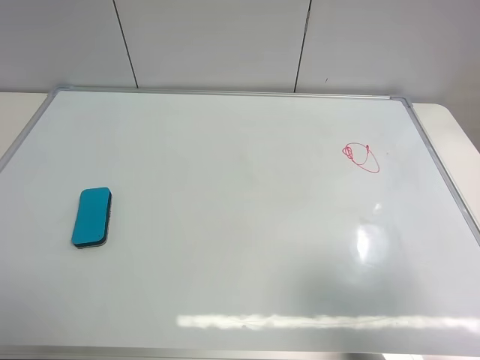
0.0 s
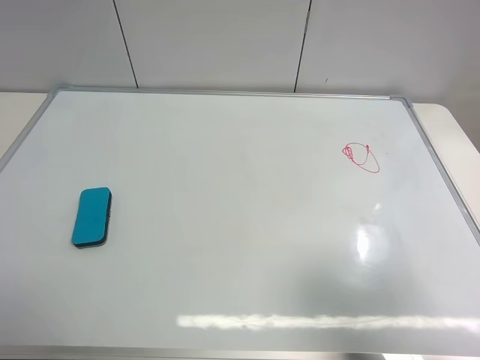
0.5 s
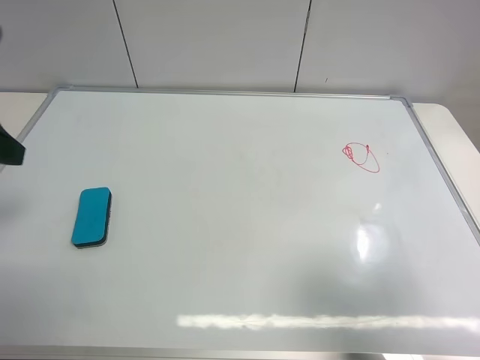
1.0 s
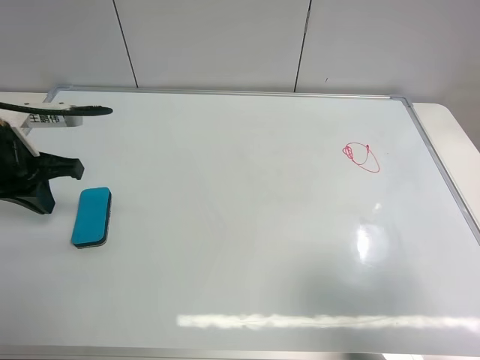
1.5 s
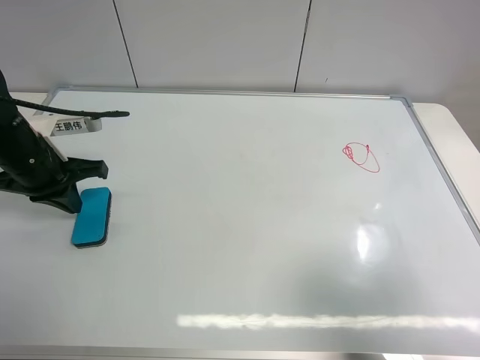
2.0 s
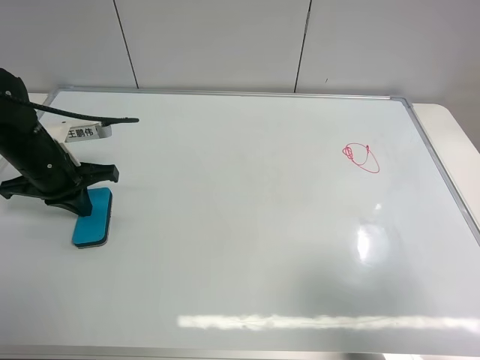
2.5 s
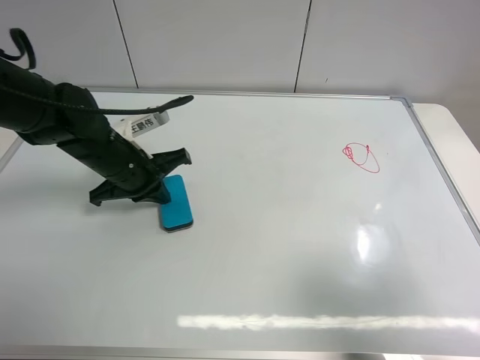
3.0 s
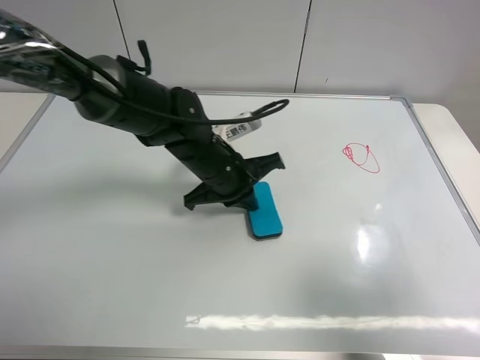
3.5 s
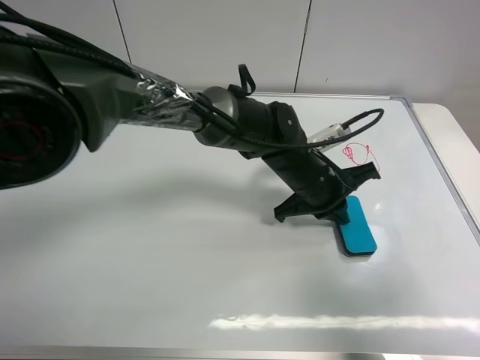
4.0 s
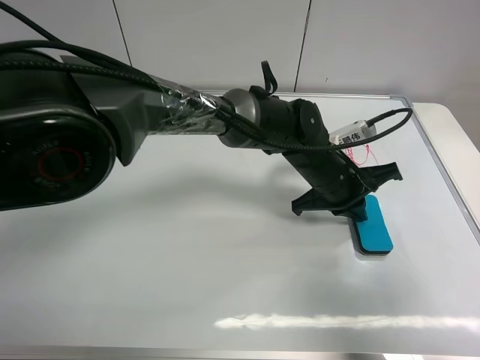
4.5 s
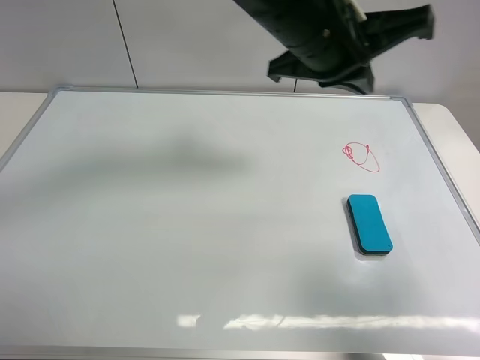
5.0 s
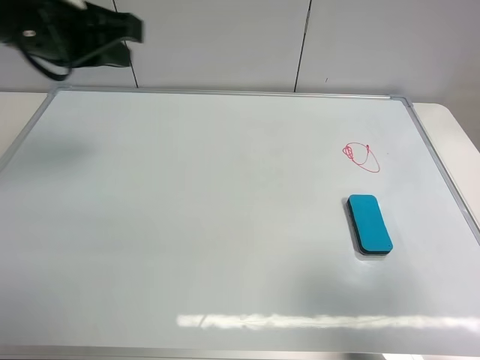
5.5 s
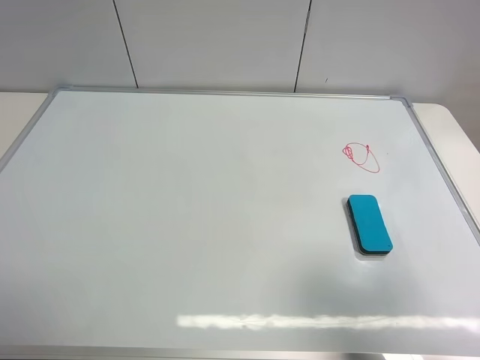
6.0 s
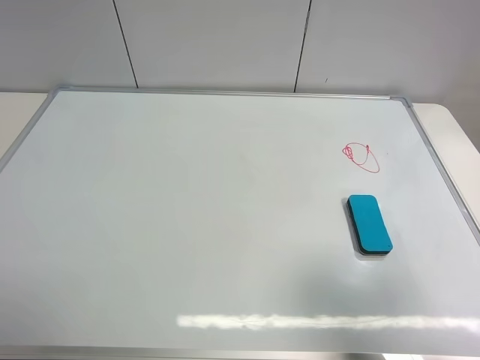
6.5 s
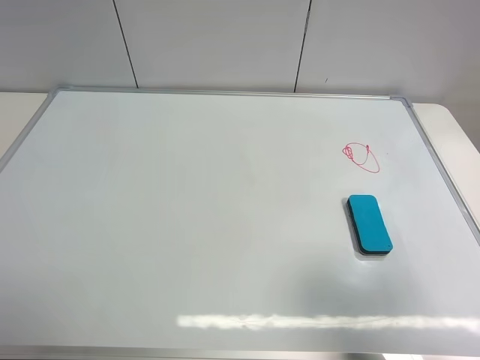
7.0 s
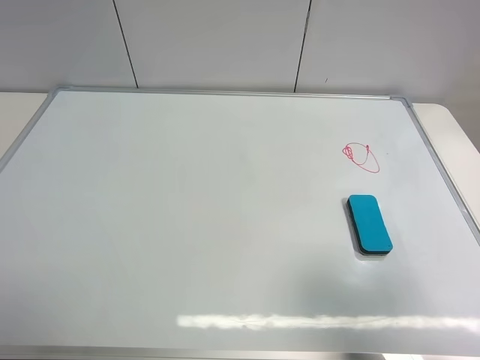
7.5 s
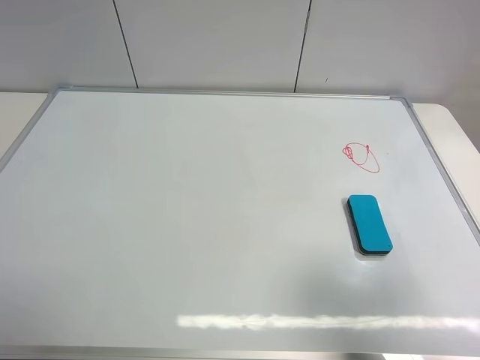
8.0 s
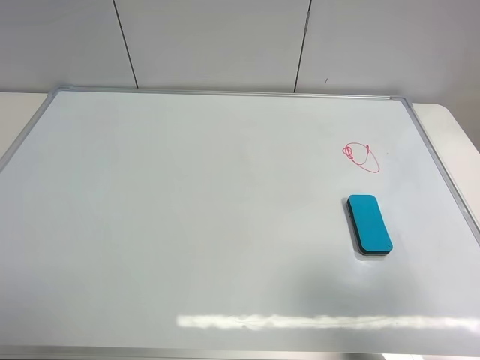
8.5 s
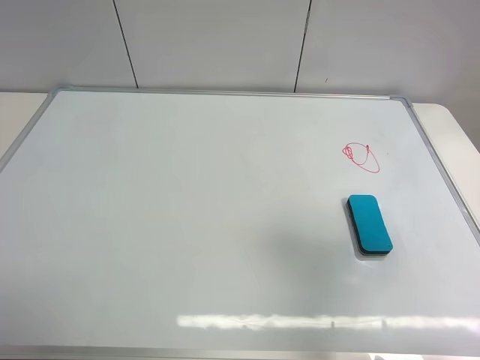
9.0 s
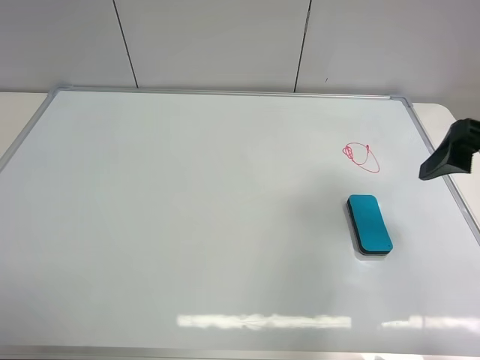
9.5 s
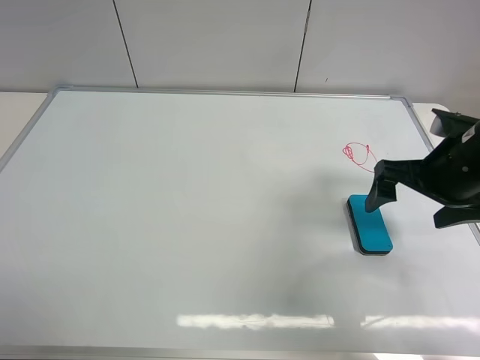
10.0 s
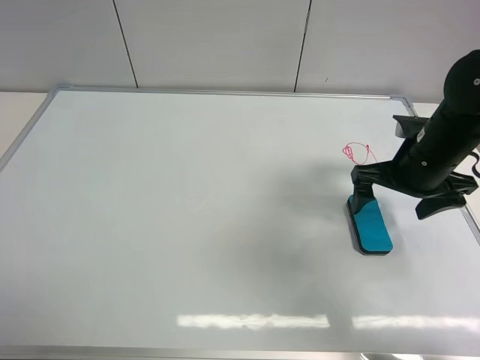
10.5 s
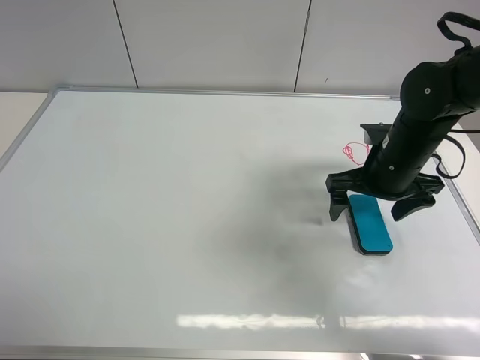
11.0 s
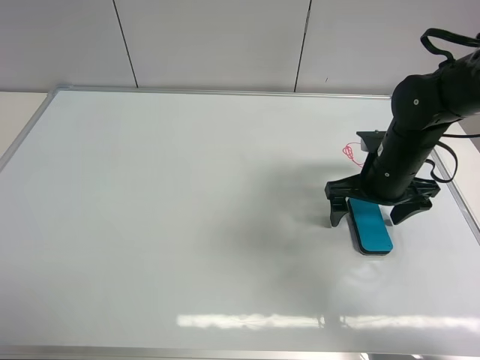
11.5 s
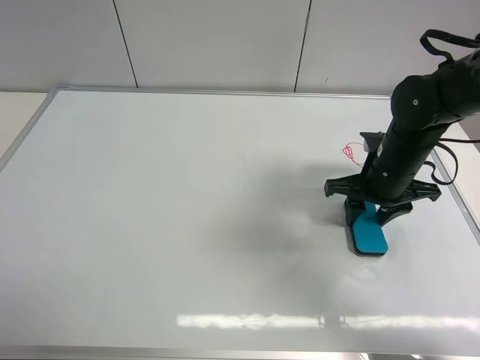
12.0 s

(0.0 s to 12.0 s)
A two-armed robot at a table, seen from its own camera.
Task of the whole recording: use the left gripper to place the eraser in the right, use the right gripper to pick up the eraser, wipe the notes on the whiteboard clean, and then put it down.
Step, 0.0 s - 4.5 s: Move the board eraser to the right of the whiteboard with left gripper.
0.0 s - 2.0 s: The left gripper travels forward and downward by approximately 30 cm, and closes.
2.0 s - 4.0 s: The left gripper shifts approximately 35 cm to the right.
4.0 s - 6.0 s: The left gripper travels to the left, upward and backward by some 50 cm, and opens up.
8.0 s - 10.0 s: The right gripper moves forward and downward, some 25 cm.
10.0 s - 12.0 s: The right gripper goes some 10 cm downward and forward, and closes its fingers.

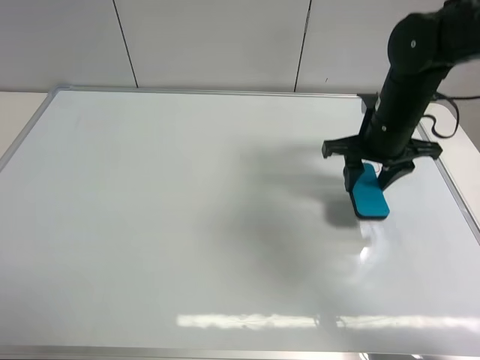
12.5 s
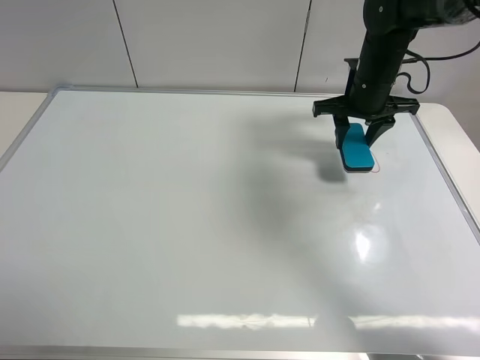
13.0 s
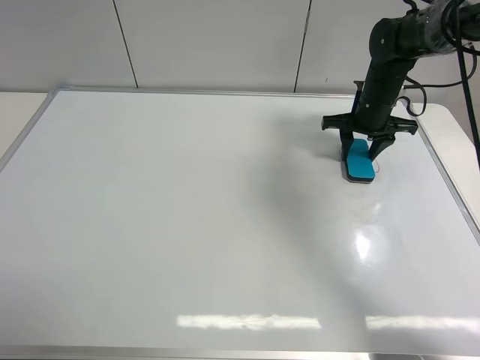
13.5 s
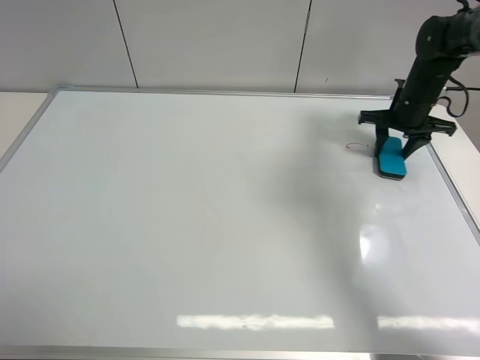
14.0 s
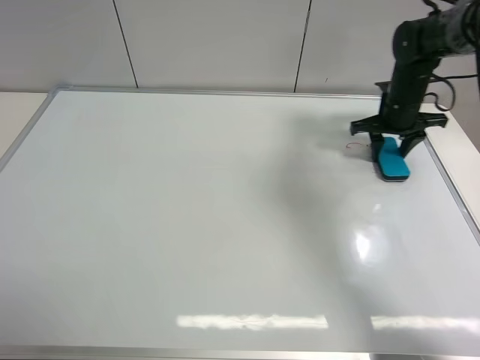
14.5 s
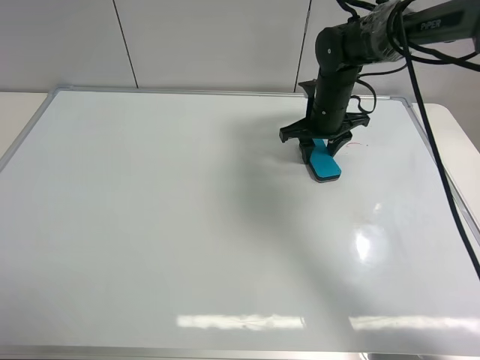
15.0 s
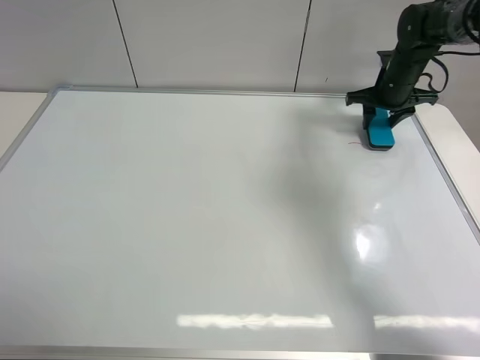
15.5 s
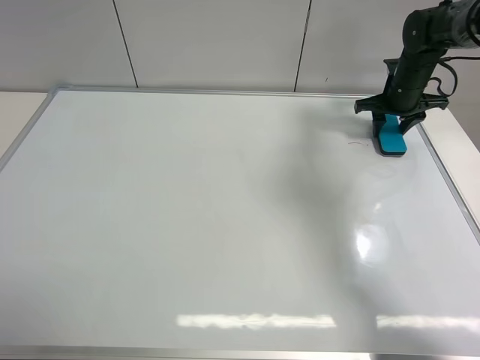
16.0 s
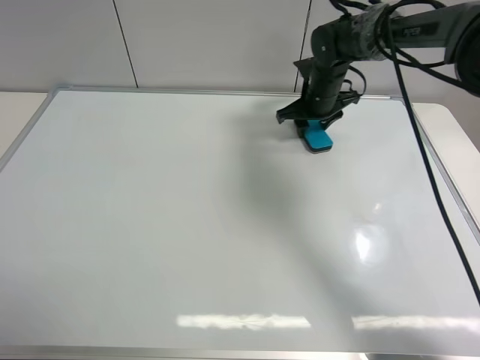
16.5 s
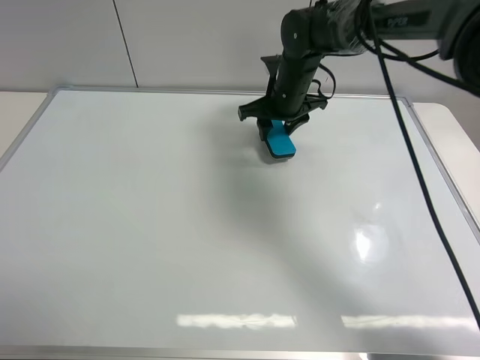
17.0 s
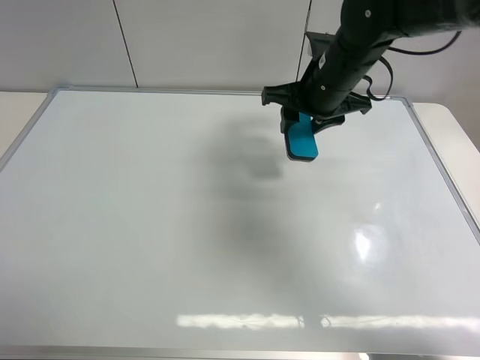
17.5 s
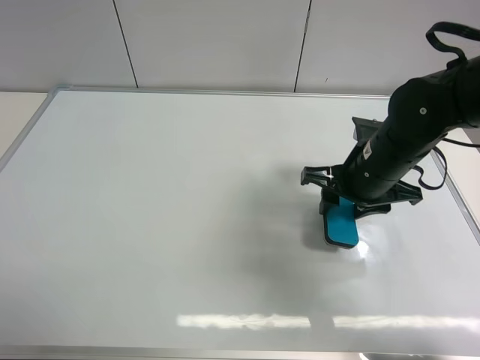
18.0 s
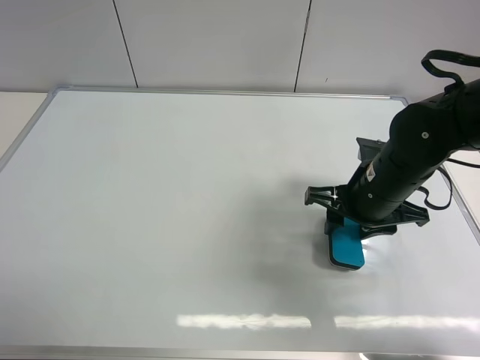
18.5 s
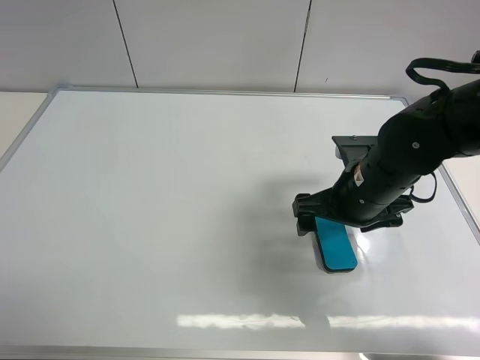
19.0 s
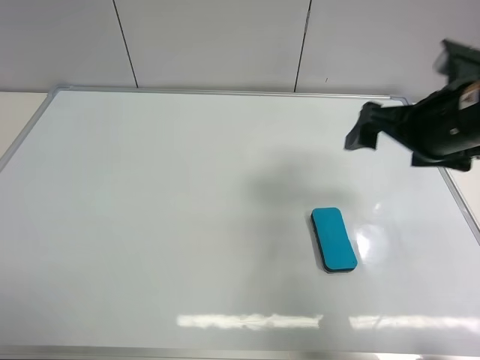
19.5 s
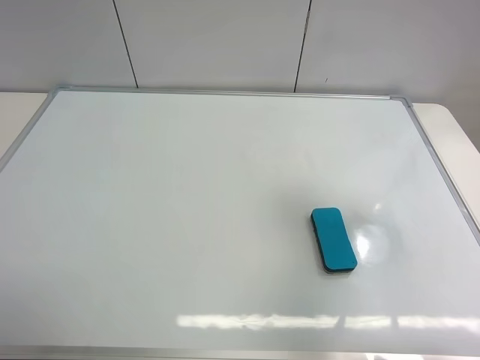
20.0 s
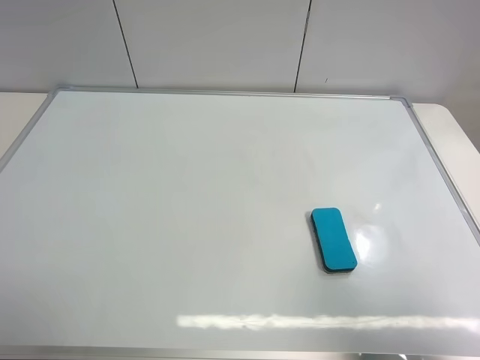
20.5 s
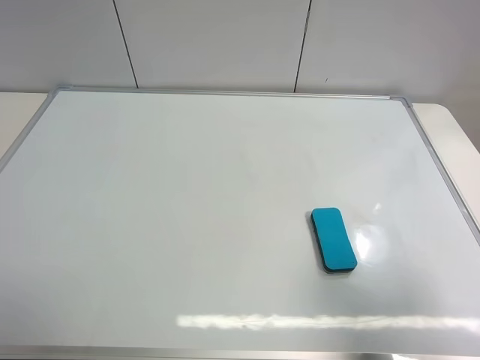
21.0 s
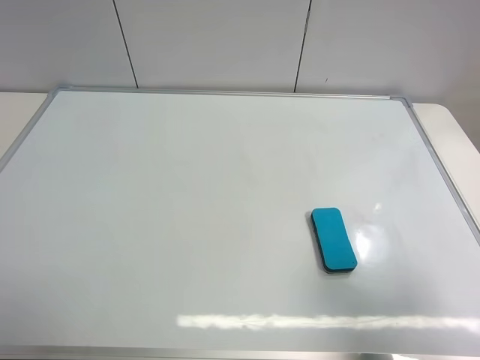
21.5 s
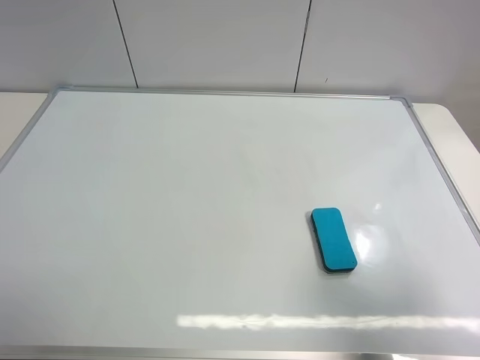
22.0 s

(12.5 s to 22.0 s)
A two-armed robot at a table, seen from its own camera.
Task of the whole recording: use the left gripper to place the eraser in the right, use the right gripper to pick up the eraser, wipe the notes on the whiteboard clean, and then put it down.
Step, 12.5 s - 16.5 s: Wipe off the writing on the board with right gripper.
Step, 17.0 s - 18.5 s: Place the board eraser on the right side of board with right gripper.
12.5 s - 14.5 s: The right gripper moves forward, to the right and downward, approximately 15 cm.
14.5 s - 16.5 s: The right gripper moves left and right over roughly 15 cm, changing direction 2 times.
16.5 s - 18.0 s: The right gripper goes roughly 20 cm backward.
18.0 s - 20.0 s: The right gripper heads upward, backward and to the right, covering approximately 30 cm, and opens.
20.0 s - 22.0 s: The right gripper heads backward and downward, covering roughly 10 cm.
